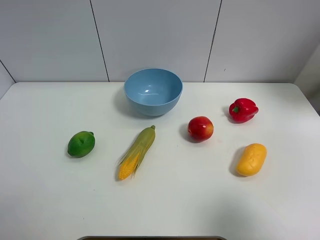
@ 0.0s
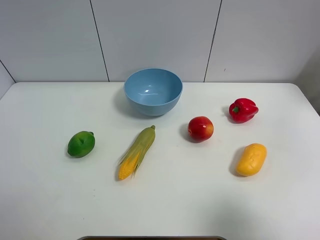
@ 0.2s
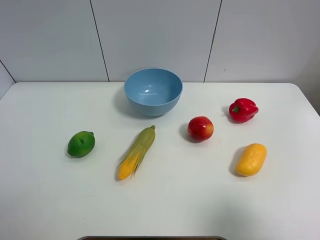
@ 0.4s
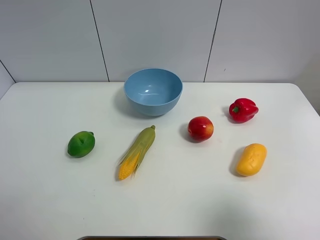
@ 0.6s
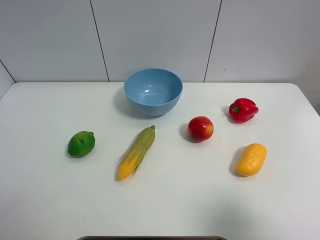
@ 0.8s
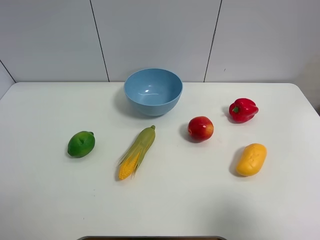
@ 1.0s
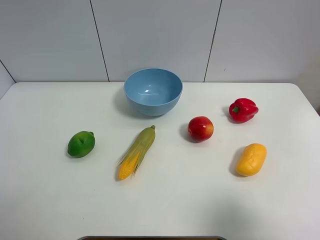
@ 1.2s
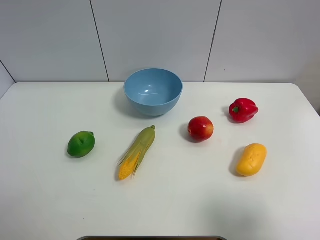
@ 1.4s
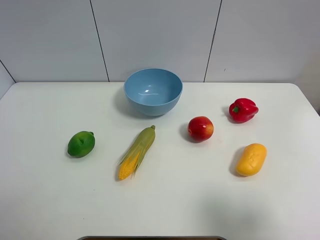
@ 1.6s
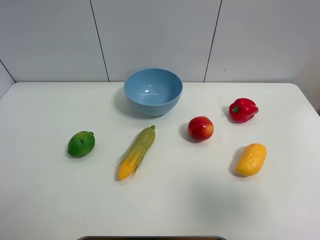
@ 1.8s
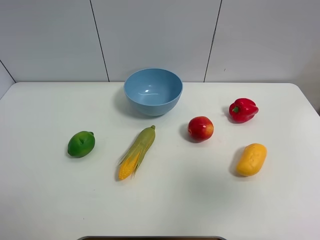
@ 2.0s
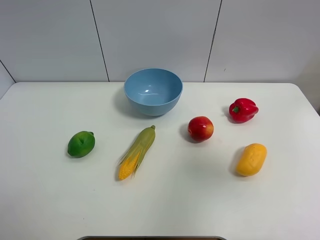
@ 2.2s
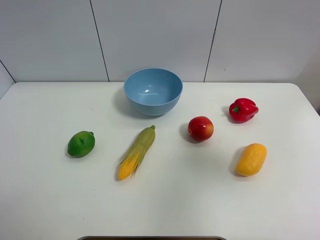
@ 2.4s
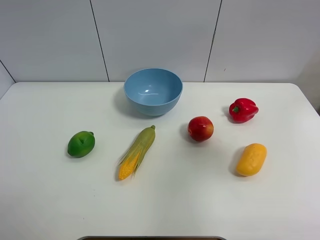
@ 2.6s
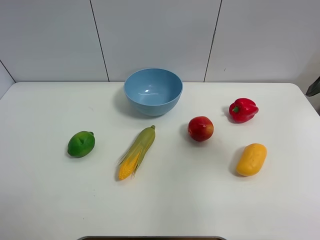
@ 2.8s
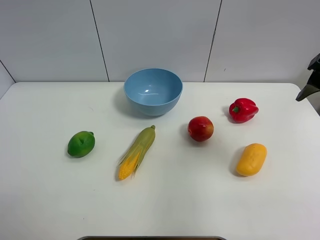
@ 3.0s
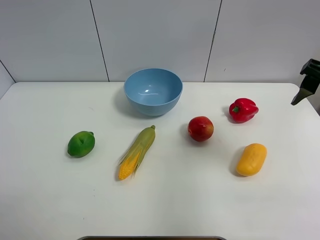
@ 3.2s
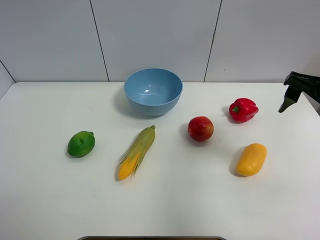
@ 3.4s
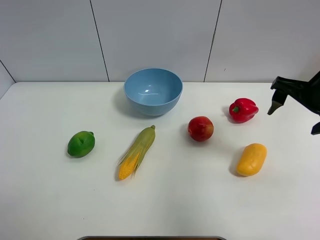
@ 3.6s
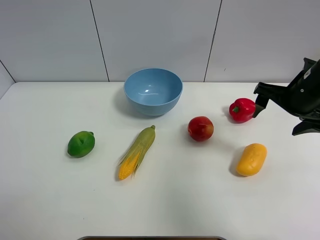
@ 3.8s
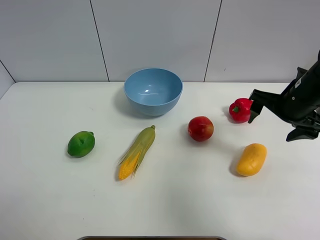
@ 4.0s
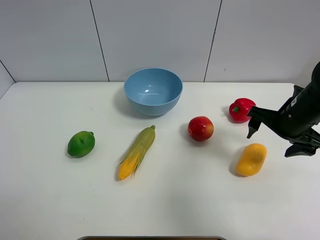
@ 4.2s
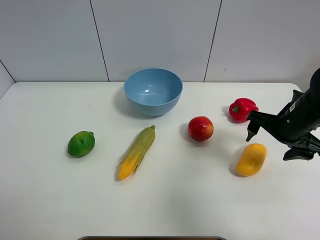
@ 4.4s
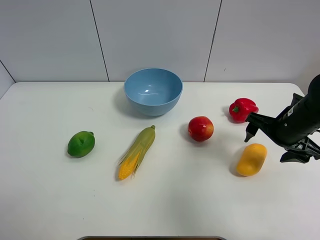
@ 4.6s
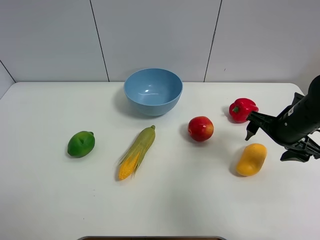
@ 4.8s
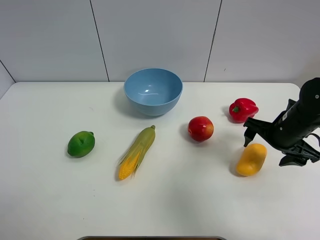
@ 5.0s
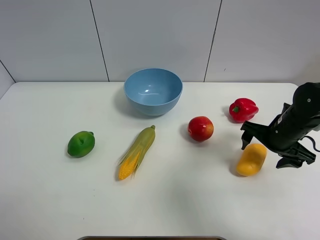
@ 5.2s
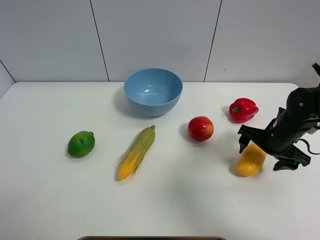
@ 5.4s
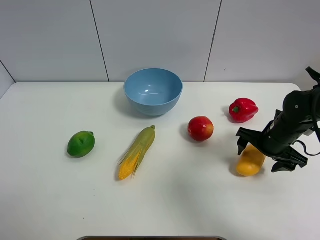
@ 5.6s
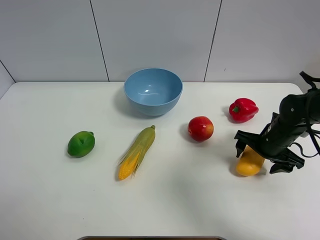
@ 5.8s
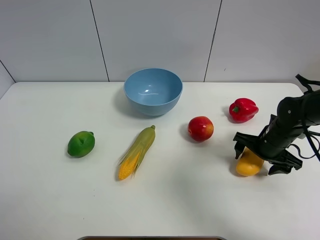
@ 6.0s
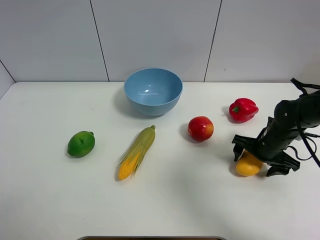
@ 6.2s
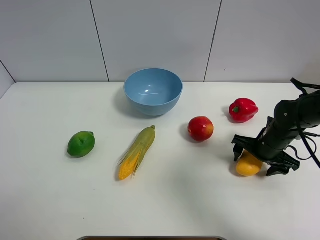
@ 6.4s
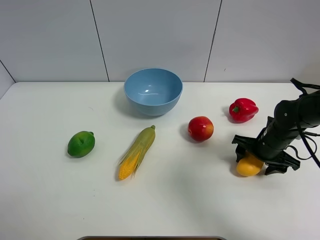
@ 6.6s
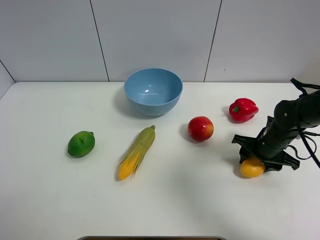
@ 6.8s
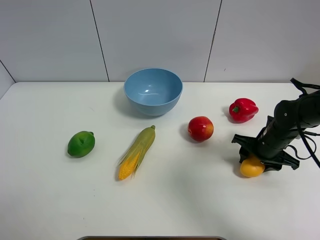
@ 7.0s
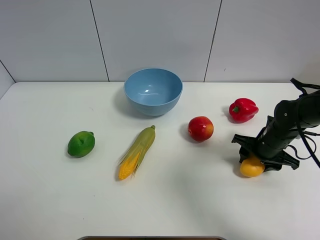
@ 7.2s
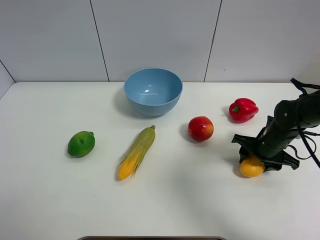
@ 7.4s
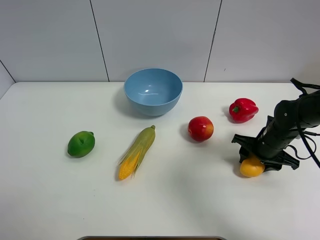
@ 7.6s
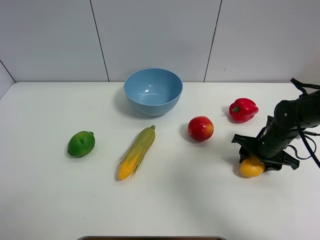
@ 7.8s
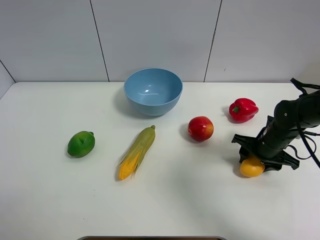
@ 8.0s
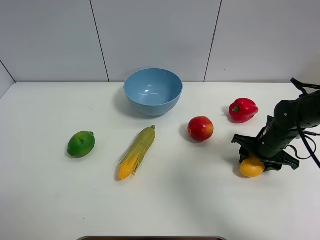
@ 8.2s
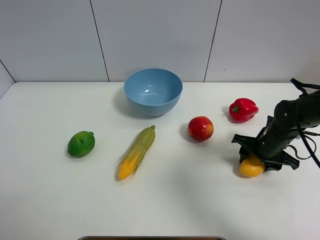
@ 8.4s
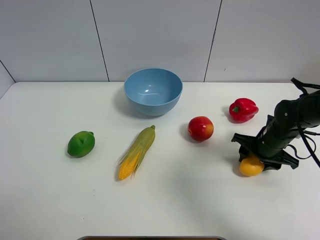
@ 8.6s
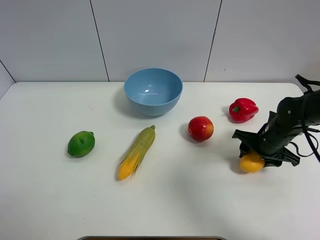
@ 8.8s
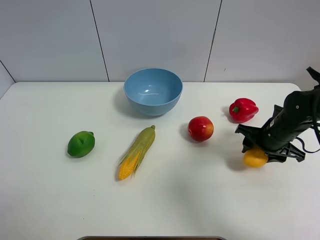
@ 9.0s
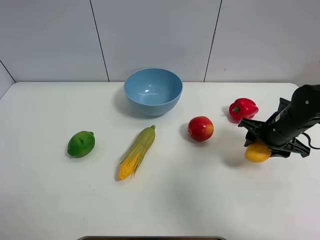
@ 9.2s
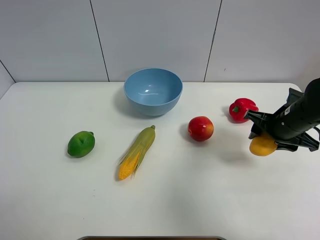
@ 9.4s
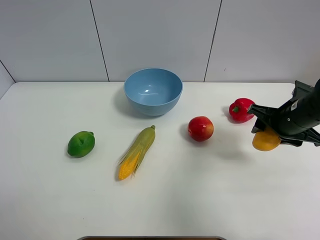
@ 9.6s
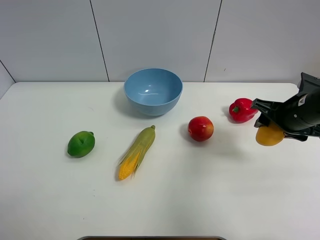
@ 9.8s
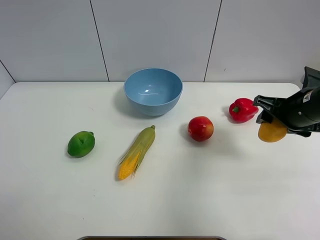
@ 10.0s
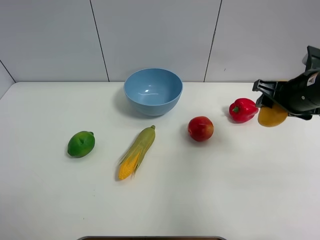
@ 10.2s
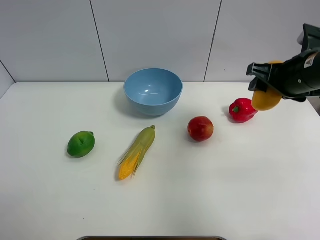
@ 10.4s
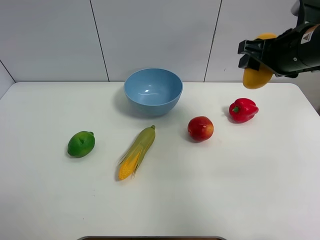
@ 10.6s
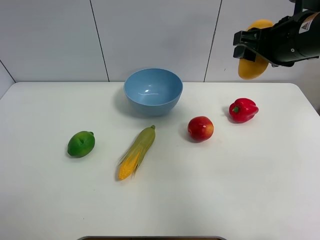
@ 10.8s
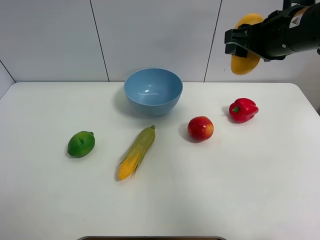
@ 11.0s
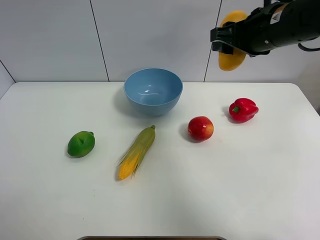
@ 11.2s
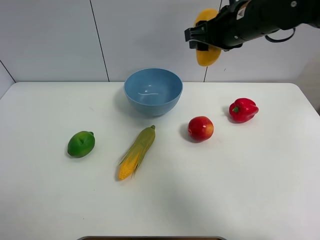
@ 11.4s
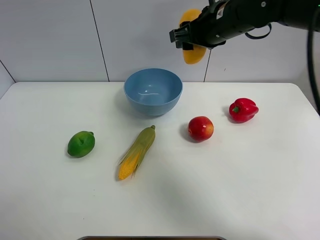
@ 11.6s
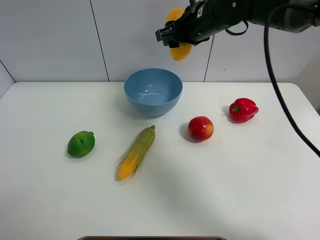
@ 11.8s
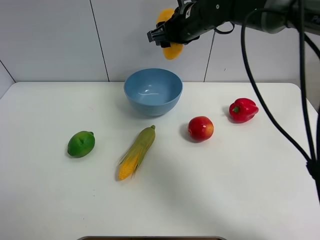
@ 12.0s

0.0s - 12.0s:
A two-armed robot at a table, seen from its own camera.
Task of the whole recording: Put the three fruits on the table into a bowl.
Step, 0.0s - 6.8s: Grasp the mango with right gripper.
0.0s - 1.6s: The right gripper opens.
1.6s - 3.0s: The right gripper travels forward by roughly 20 cm.
3.0s - 4.4s: The right gripper shifts roughly 15 cm downward.
4.4s - 6.0s: The right gripper goes some 10 cm downward.
6.0s - 7.6s: The right gripper closes.
7.6s - 9.0s: The grippers make only small movements.
9.0s - 10.4s: The right gripper moves upward, about 15 cm.
10.4s - 12.0s: The right gripper heads to the left and forward, covering about 25 cm.

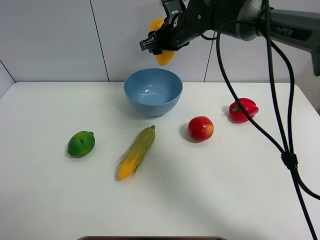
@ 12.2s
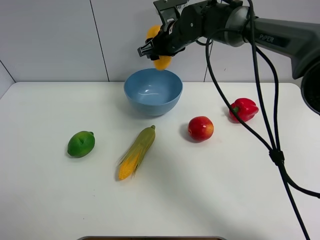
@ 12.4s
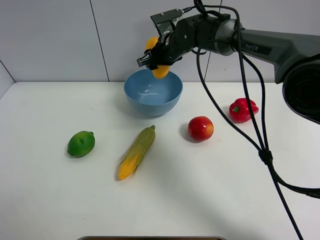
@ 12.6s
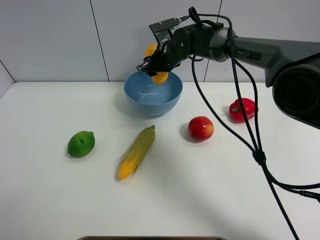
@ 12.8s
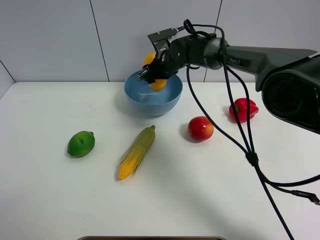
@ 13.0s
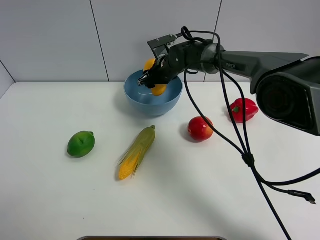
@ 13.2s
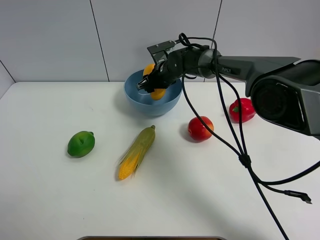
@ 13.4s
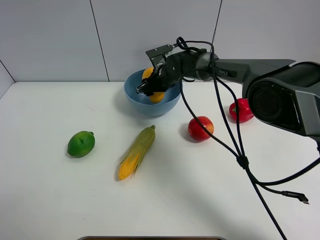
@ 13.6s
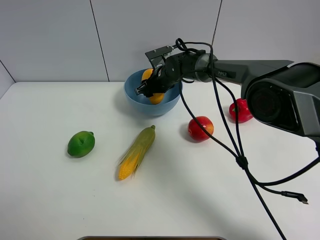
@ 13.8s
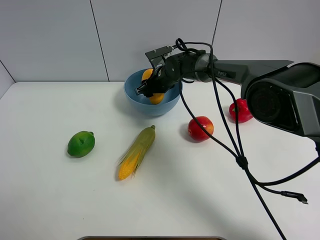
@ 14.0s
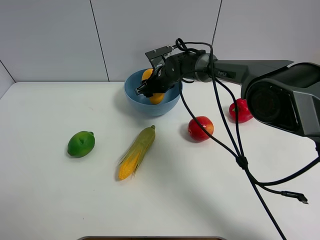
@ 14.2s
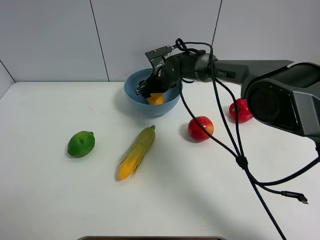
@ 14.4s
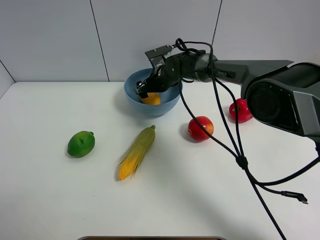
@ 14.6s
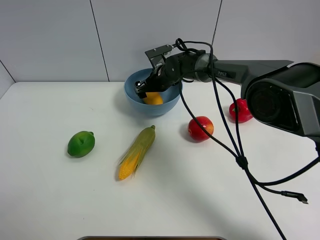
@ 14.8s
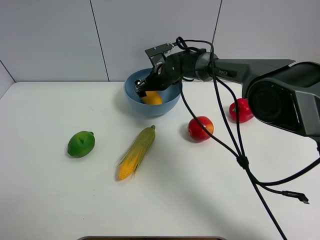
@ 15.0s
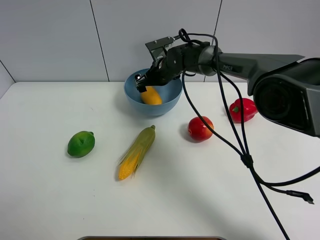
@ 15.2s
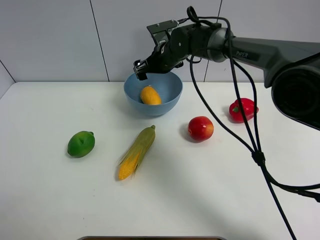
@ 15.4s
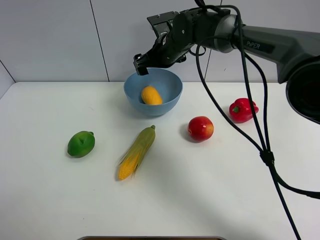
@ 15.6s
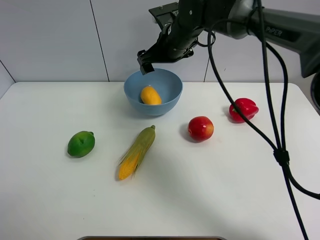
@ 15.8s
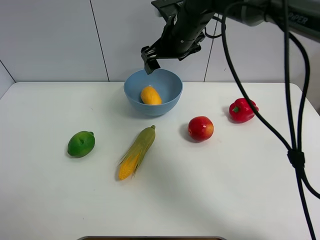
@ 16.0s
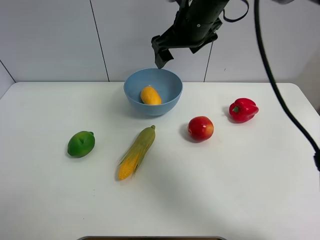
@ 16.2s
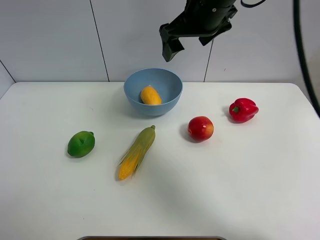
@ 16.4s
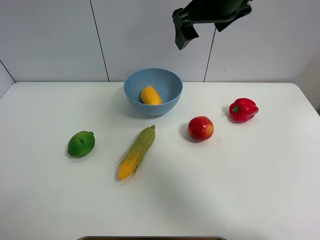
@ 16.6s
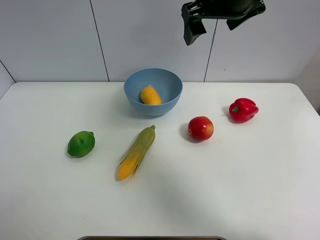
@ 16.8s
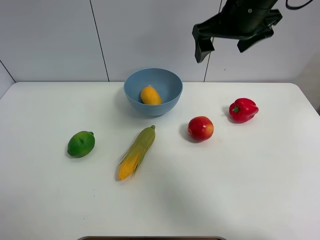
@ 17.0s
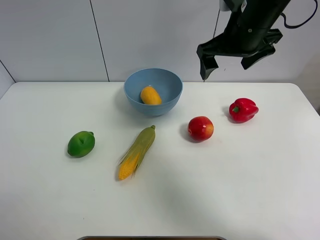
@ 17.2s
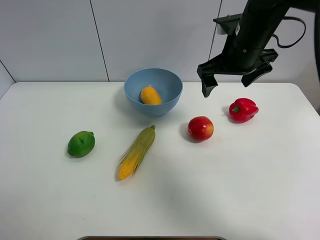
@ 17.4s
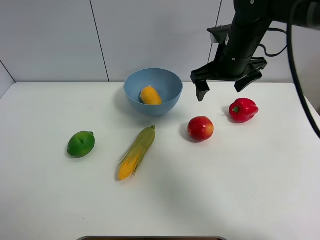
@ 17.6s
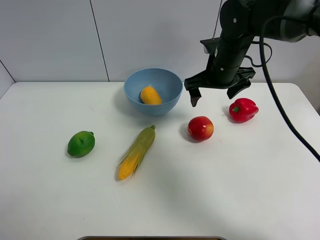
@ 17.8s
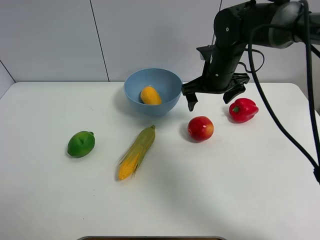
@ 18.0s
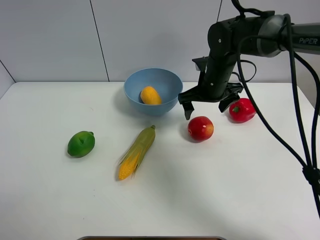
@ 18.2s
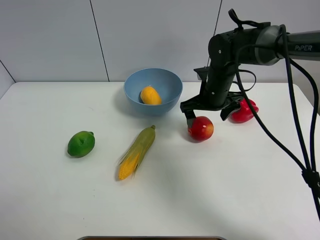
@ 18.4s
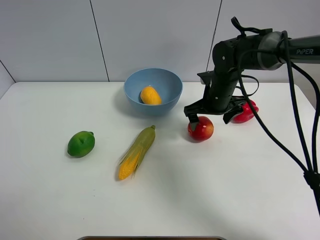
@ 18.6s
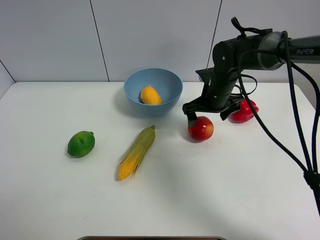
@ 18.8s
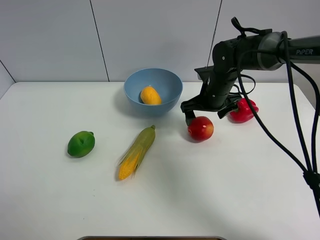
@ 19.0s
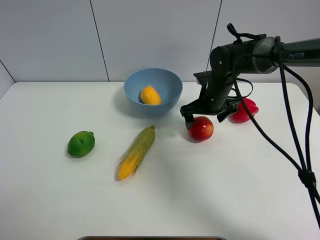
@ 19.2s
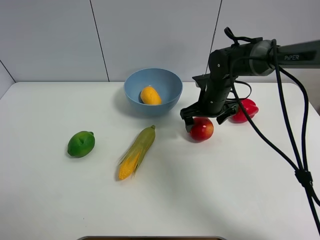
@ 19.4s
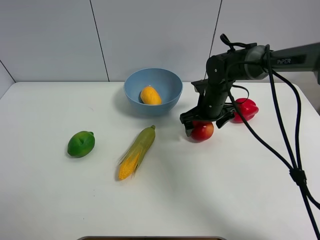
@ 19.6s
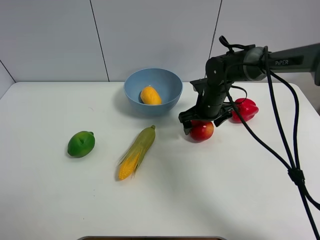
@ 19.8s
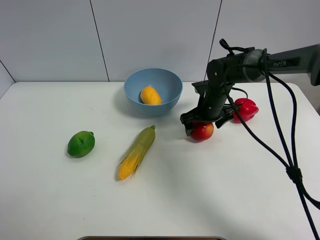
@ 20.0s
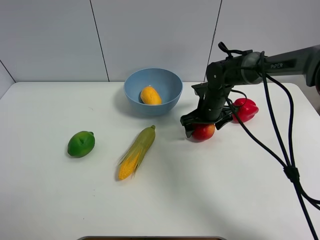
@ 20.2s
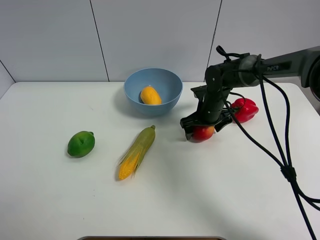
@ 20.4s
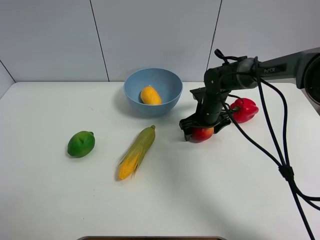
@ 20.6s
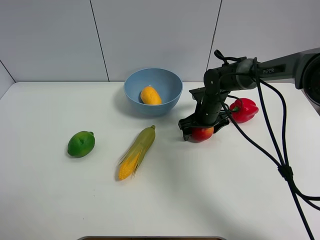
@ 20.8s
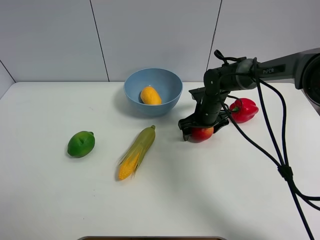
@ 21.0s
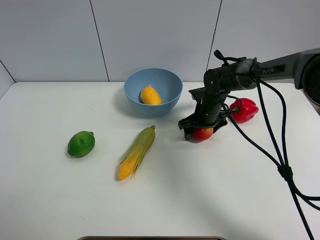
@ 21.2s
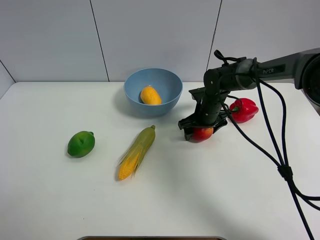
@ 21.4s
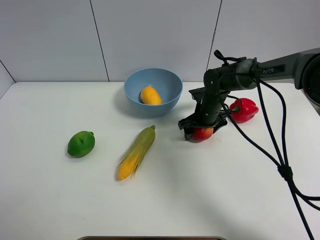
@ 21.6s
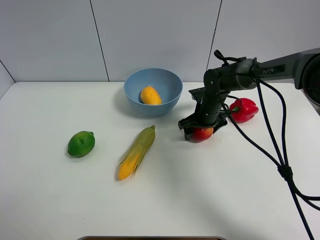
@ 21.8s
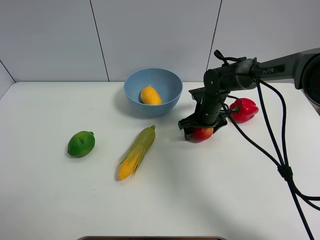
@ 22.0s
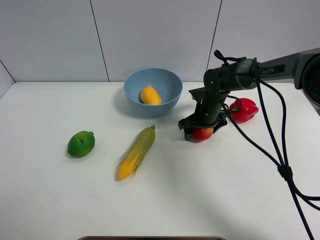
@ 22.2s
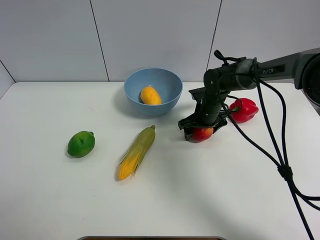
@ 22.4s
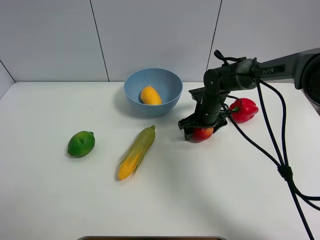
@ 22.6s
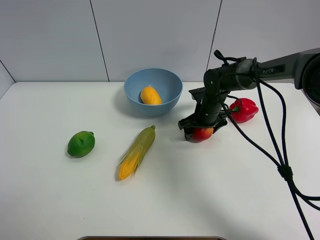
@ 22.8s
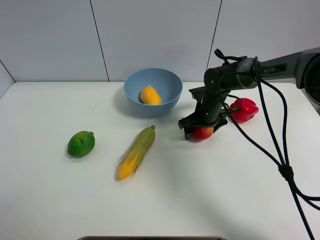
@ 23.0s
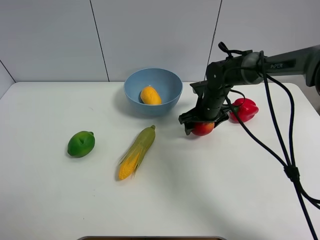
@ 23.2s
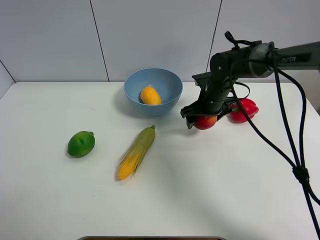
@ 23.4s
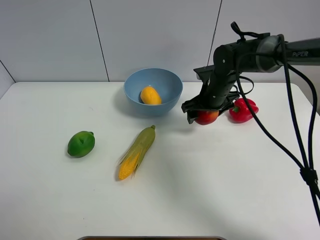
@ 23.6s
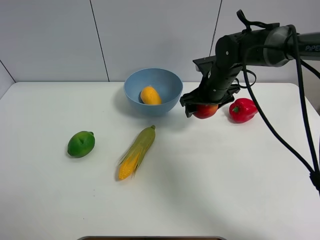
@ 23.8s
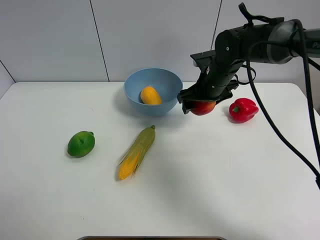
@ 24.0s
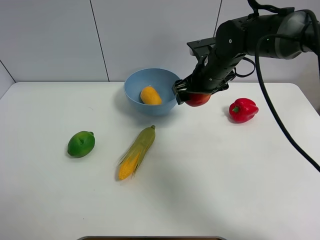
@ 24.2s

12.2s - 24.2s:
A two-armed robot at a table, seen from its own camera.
Task of the whole recording: Put the three fruits on the table into a bowl.
Step, 12.2s - 14.8s: Place the mango in the blue bowl with right gripper.
Step, 15.0s - 21.2s: Grasp the pomegranate with right gripper.
12.2s - 13.8s: The right gripper shifts about 15 cm downward.
13.8s - 15.2s: The right gripper opens.
15.2s - 16.6s: The right gripper moves upward and backward, approximately 25 cm.
16.6s - 18.2s: The right gripper moves downward, about 20 cm.
18.2s - 19.8s: The right gripper travels downward by about 5 cm.
19.8s - 21.2s: The grippers move only a little.
21.2s - 22.6s: Neither gripper changes place.
22.6s - 24.2s: The right gripper travels upward by roughly 15 cm.
